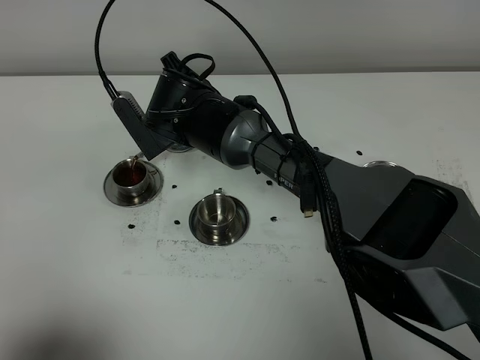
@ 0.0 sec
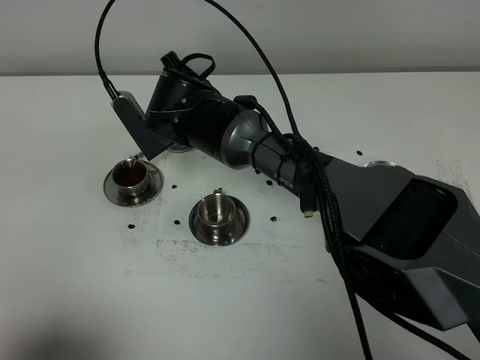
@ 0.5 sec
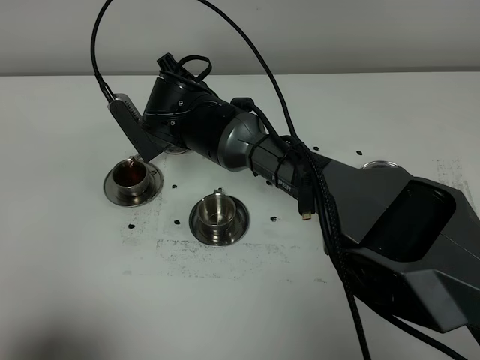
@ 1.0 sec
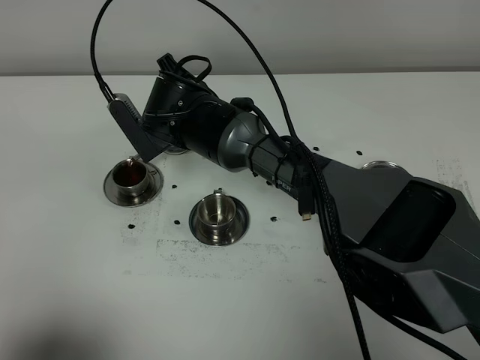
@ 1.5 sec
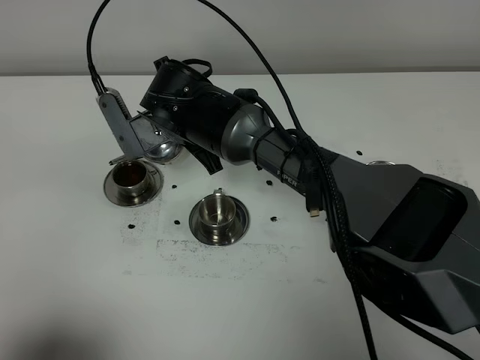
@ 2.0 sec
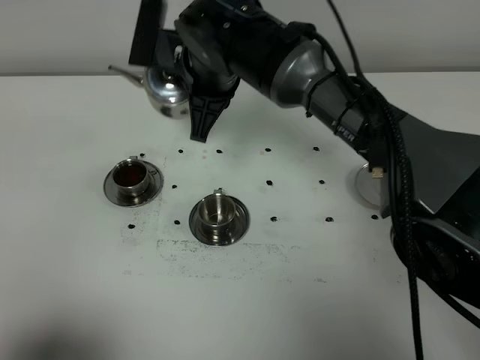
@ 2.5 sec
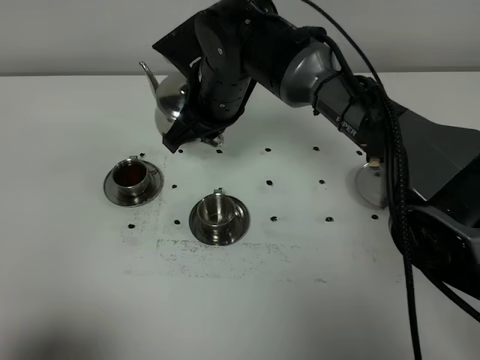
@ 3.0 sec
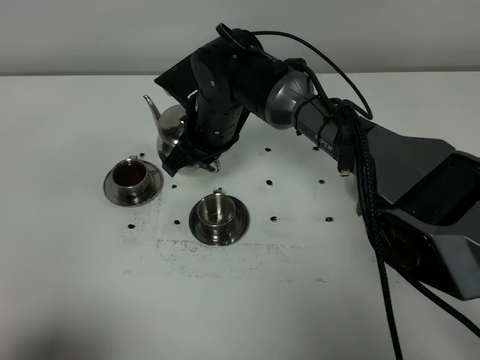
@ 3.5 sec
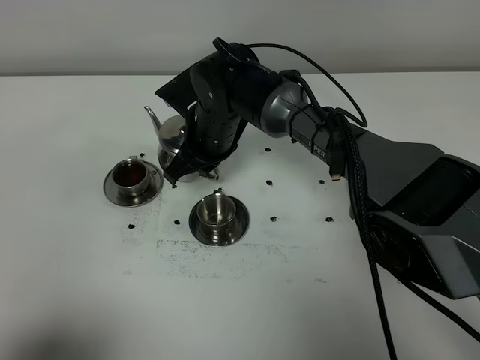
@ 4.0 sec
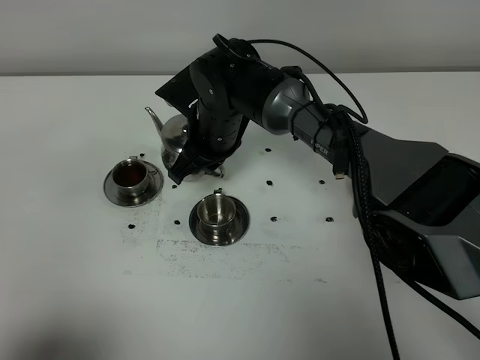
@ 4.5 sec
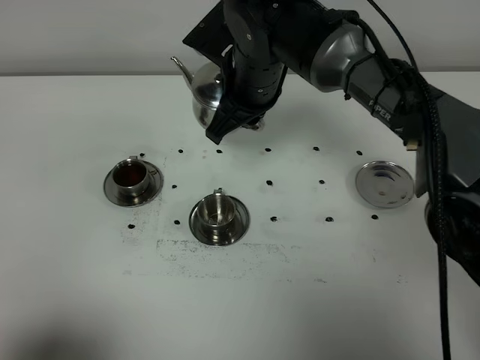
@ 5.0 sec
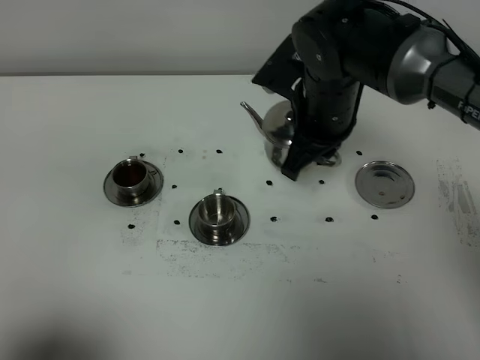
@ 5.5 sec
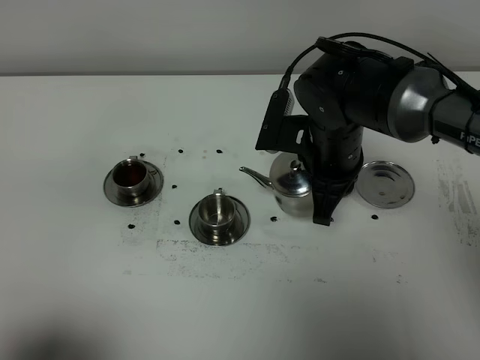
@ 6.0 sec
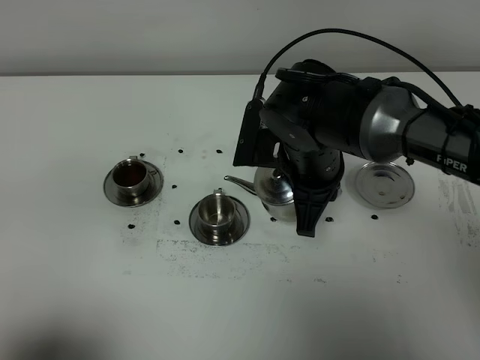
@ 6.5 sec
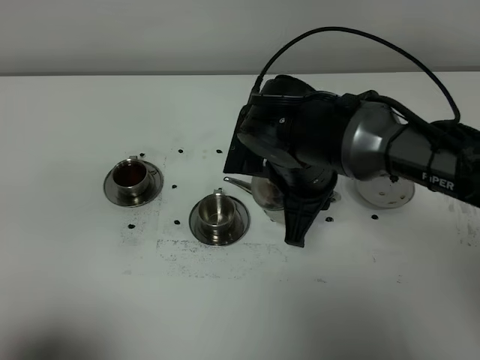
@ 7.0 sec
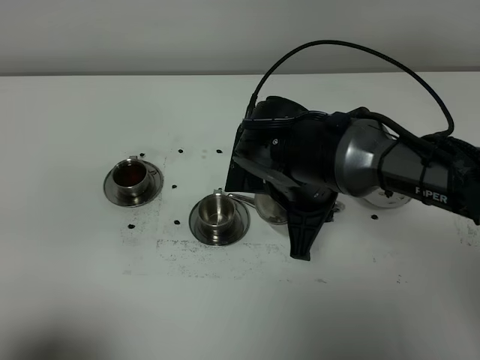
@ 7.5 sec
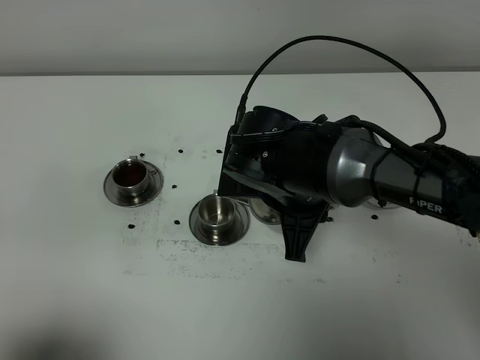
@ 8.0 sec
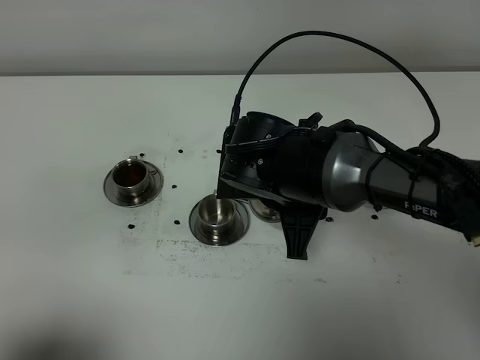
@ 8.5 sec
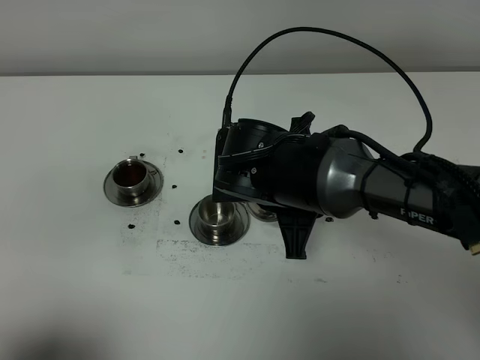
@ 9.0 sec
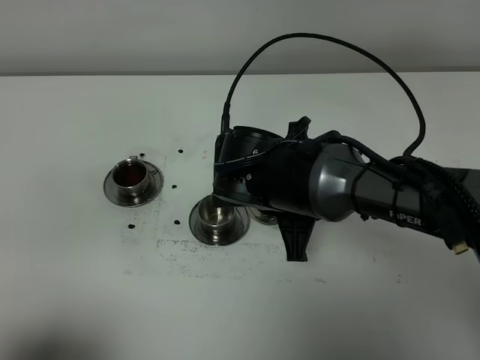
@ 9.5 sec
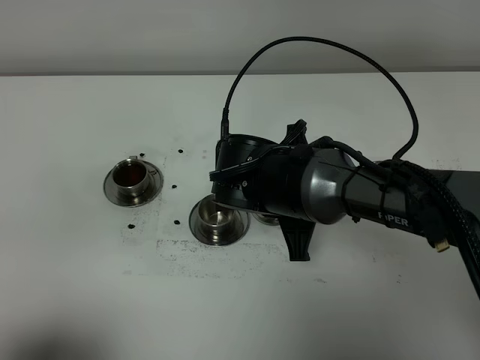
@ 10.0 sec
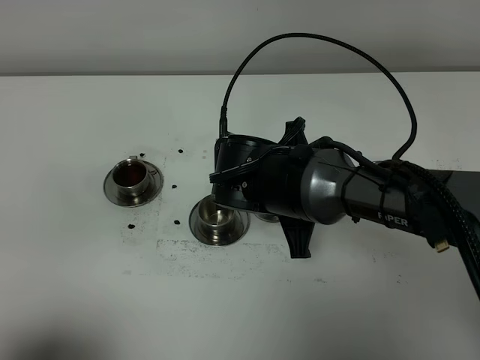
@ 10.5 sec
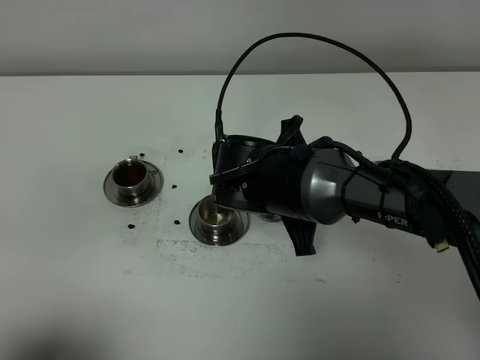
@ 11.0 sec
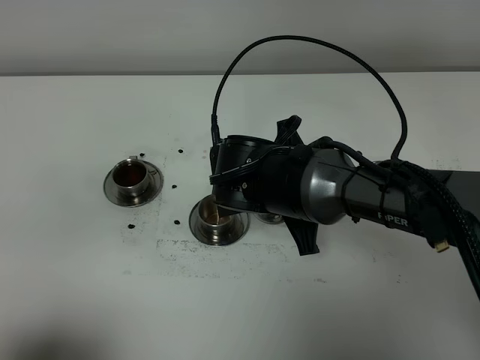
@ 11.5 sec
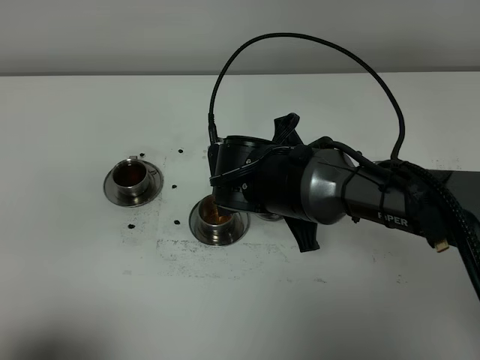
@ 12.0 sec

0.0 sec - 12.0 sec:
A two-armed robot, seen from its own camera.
Task of the whole recording: grasp the stainless steel teapot and pour the tea into the two stainless steel teacups one by one, put the stainless steel teapot back in its original place.
0.0 sec - 2.0 sec: There are only small adjustments of the grippers.
2.0 sec - 4.0 sec: The right gripper reaches about 5 cm upward, then returns.
4.0 sec - 6.0 sec: The right gripper goes approximately 15 cm to the right and backward.
6.0 sec - 8.0 sec: The right gripper moves backward, about 5 cm.
8.0 sec - 10.0 sec: The grippers stay close to where they were, moving slightly.
10.0 sec - 12.0 sec: There are only small adjustments of the grippers.

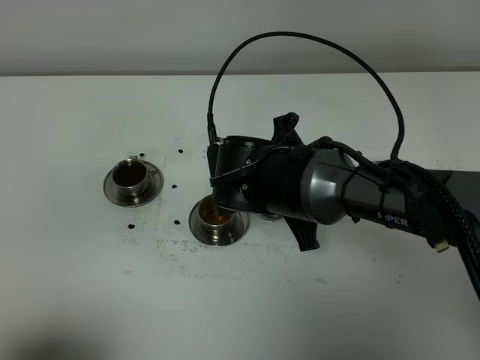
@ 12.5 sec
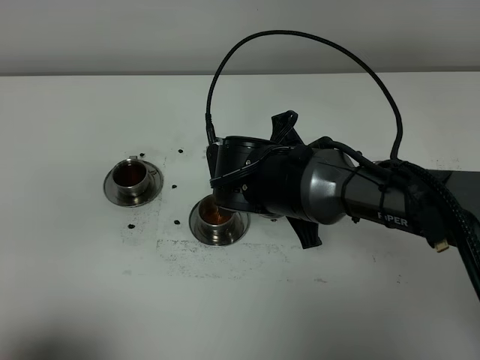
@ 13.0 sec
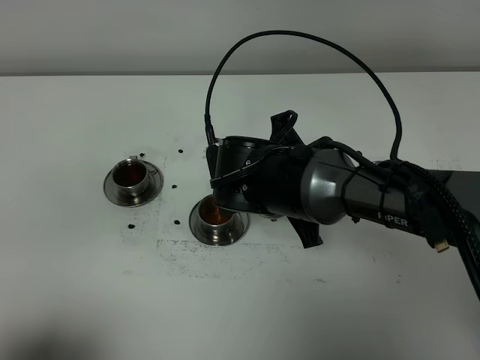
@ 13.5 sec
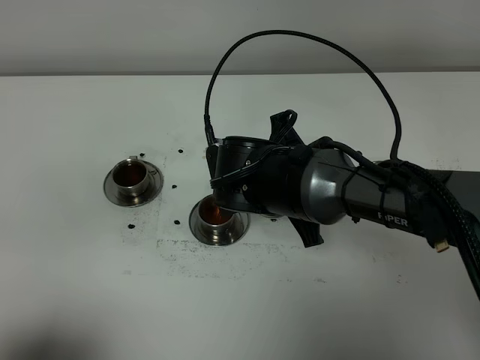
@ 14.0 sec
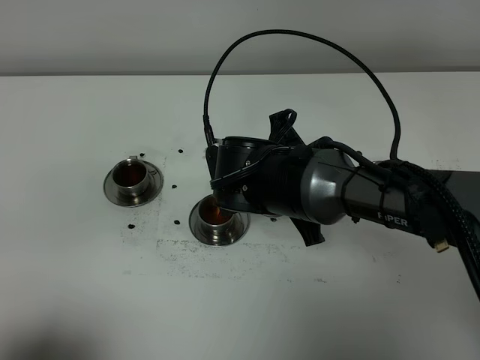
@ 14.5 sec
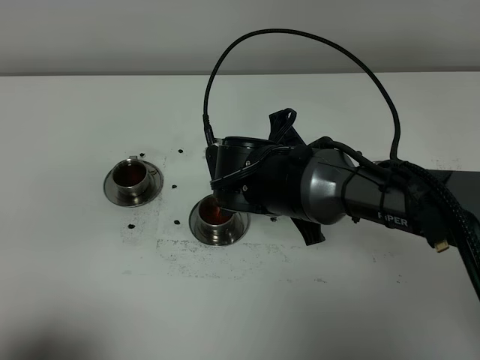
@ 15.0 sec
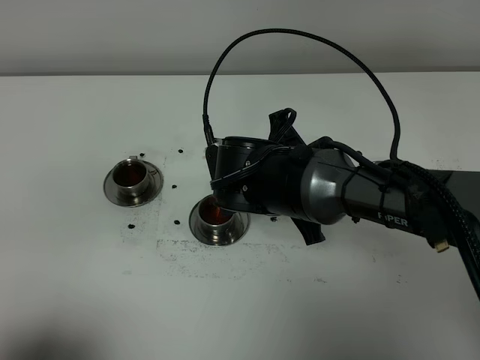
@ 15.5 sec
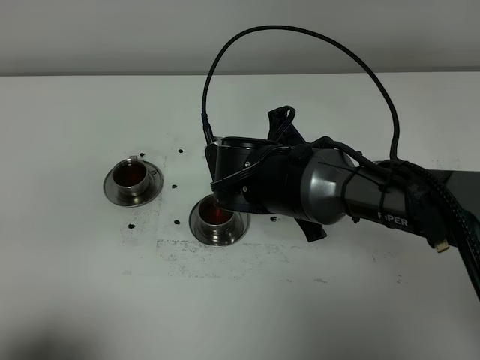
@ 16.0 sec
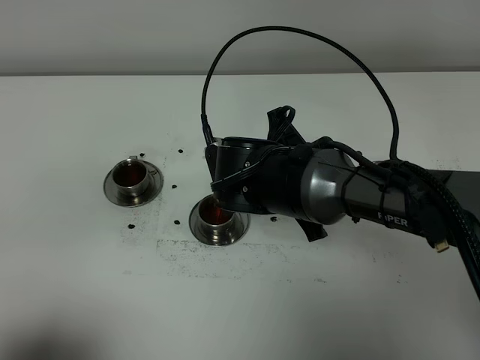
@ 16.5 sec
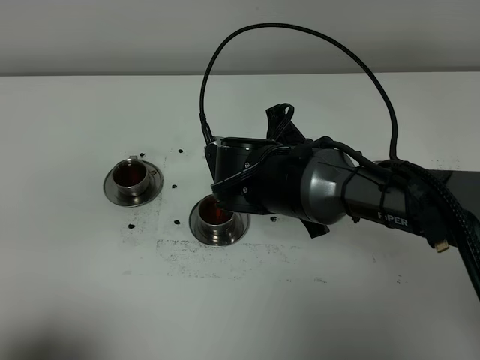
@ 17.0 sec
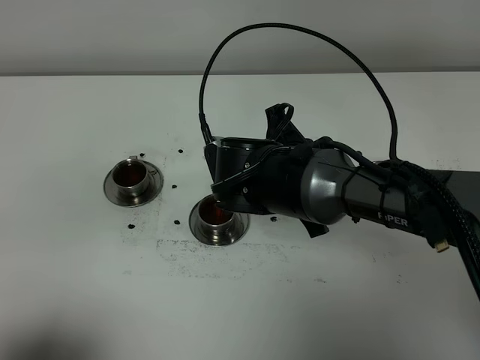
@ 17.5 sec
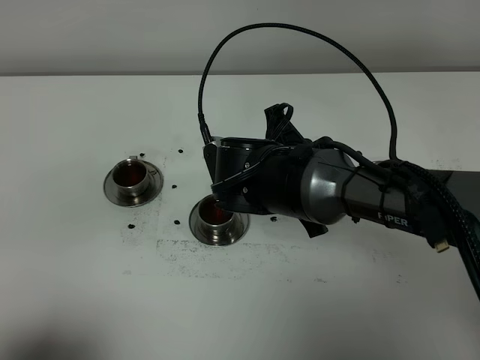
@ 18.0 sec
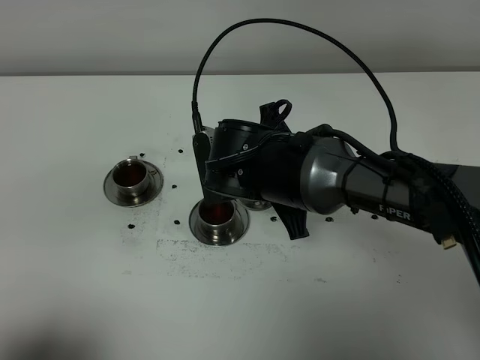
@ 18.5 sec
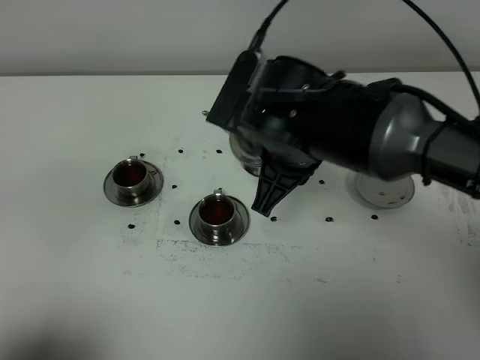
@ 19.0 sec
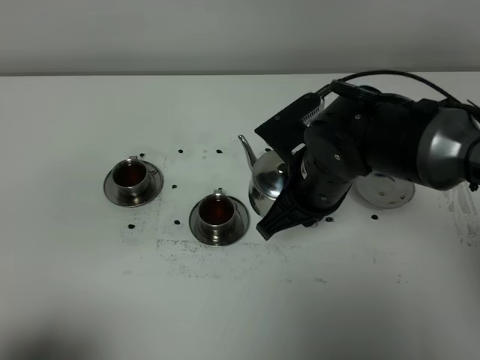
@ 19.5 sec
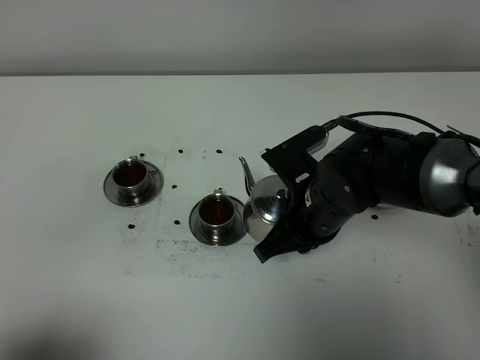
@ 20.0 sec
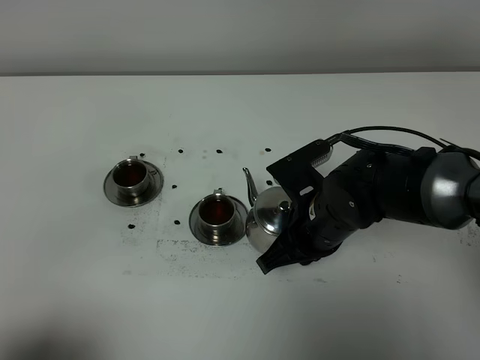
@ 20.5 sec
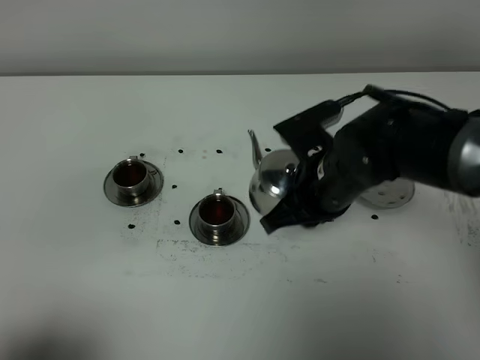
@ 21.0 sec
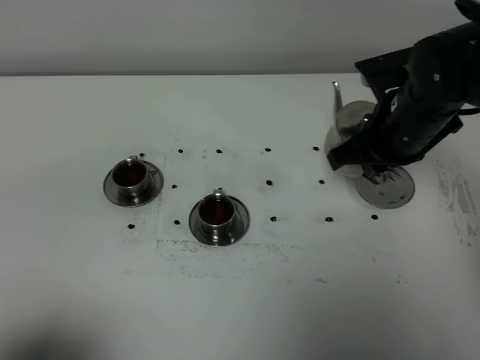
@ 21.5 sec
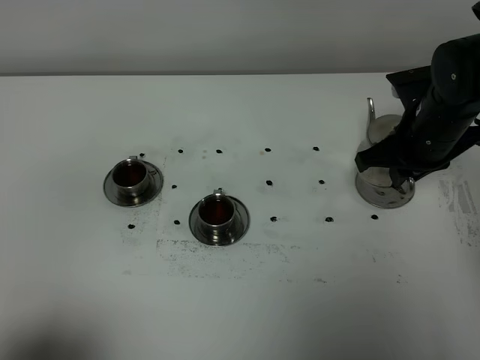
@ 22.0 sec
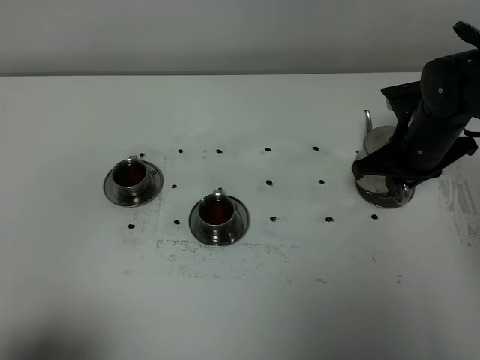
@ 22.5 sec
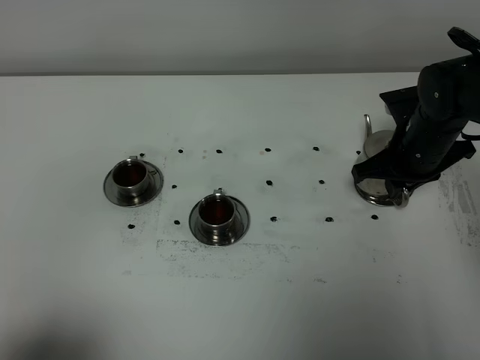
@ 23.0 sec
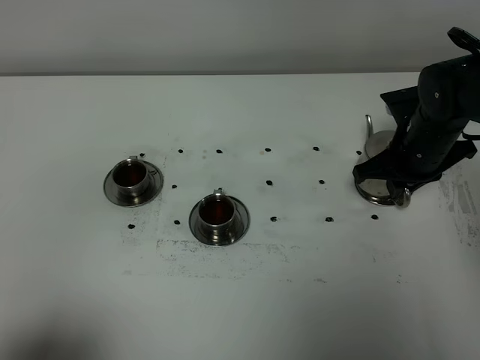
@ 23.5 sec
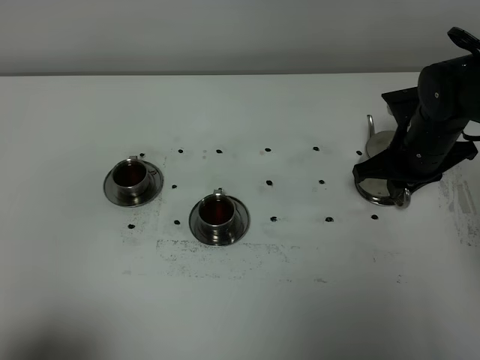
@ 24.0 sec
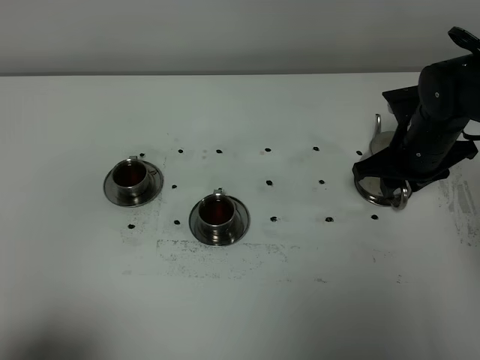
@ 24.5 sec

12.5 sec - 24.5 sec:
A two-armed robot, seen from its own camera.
Task of the whole recording: grasp the stainless steel teapot and pour the tea into the two stainless steel teacups one by one, put the stainless steel teapot back in its original place.
Step, 12.5 sec - 18.5 sec: Pour tea into the teacup with the right gripper.
12.5 sec - 14.5 sec: The two grippers keep their place.
14.5 sec - 16.5 sec: Both grippers stay put.
16.5 sec - 18.5 sec: The grippers stay close to where they were, moving slightly.
18.5 sec - 20.5 sec: The right gripper moves to the right and downward, approximately 10 cm.
20.5 sec - 22.5 sec: The right gripper shifts about 15 cm to the right and forward.
22.5 sec - 24.5 sec: The right gripper opens its fingers.

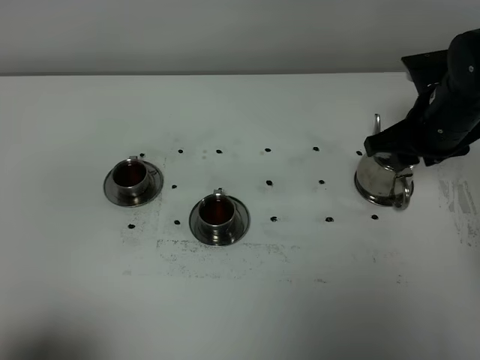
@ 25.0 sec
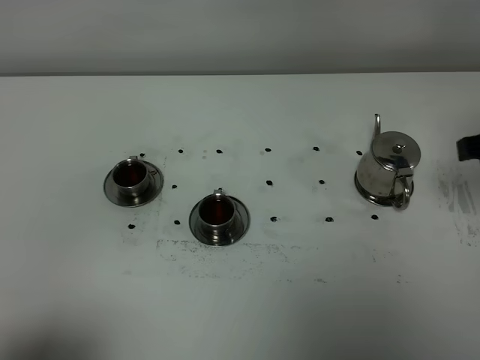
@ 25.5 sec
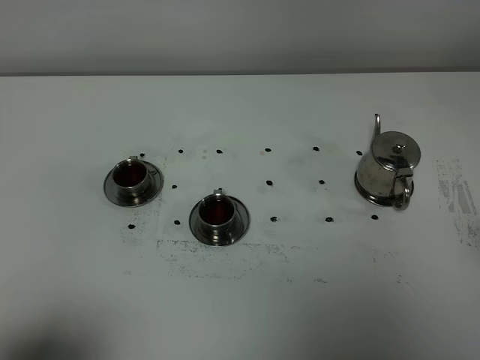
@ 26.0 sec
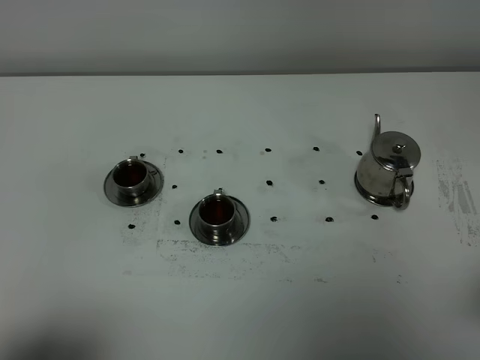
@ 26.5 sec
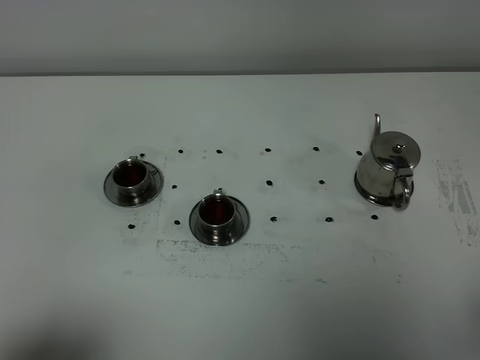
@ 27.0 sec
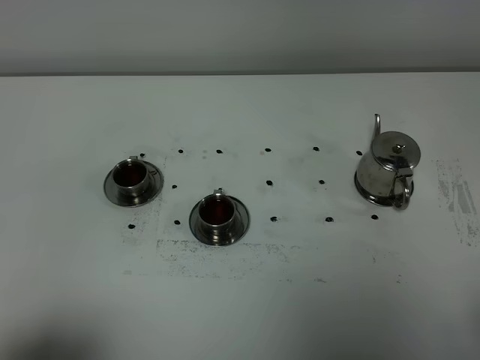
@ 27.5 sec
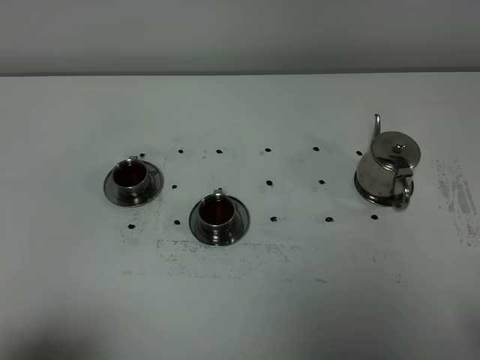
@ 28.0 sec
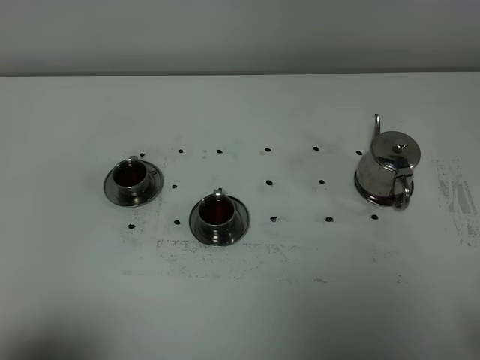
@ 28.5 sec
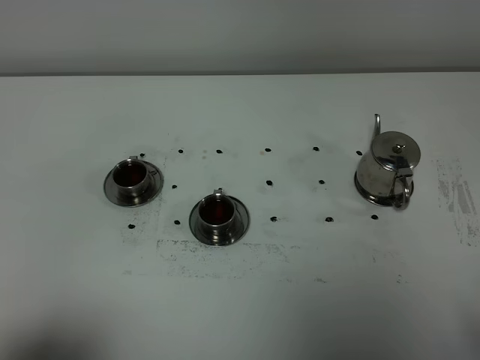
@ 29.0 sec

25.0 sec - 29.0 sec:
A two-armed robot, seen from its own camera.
Task of the whole recording: grasp the stainless steel teapot and pour the tea into the two stainless steel teacups one by one, put the stainless steel teapot back in its original place.
25.0 sec - 27.0 sec: The right gripper goes approximately 30 cm backward.
